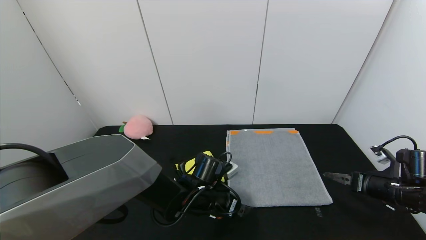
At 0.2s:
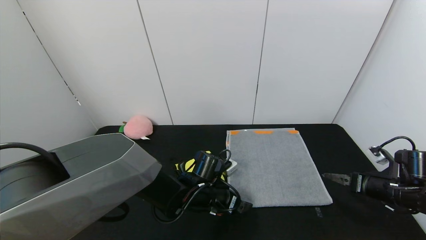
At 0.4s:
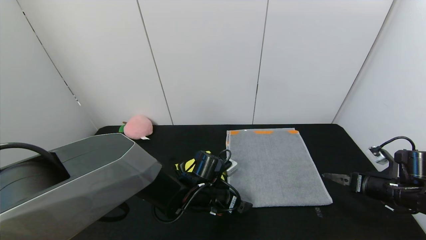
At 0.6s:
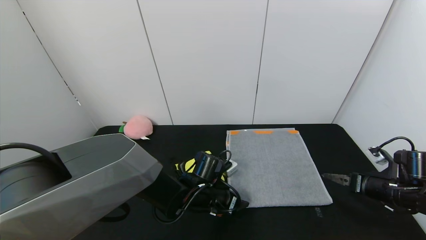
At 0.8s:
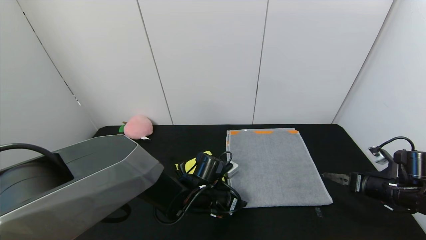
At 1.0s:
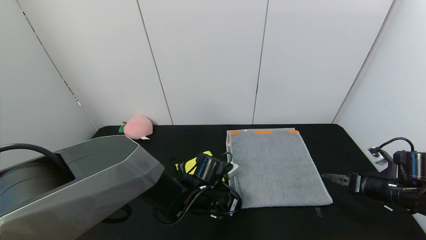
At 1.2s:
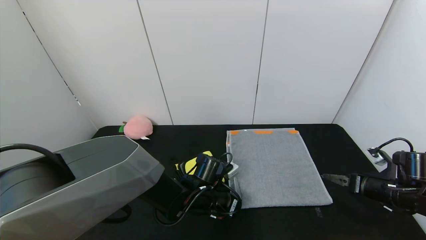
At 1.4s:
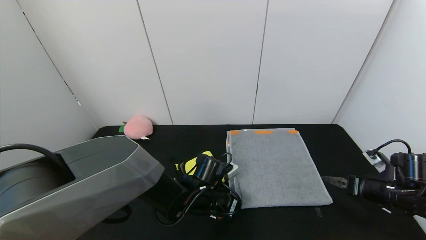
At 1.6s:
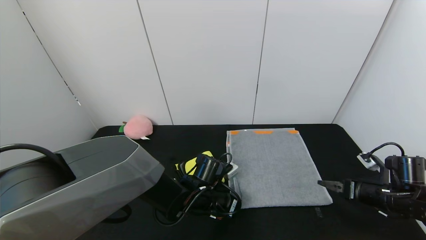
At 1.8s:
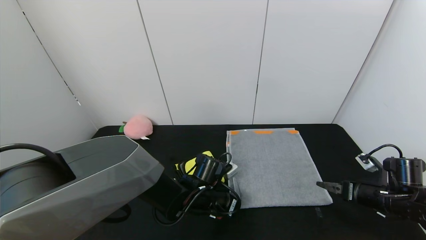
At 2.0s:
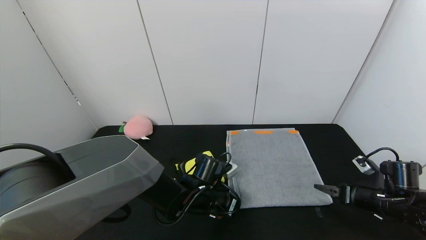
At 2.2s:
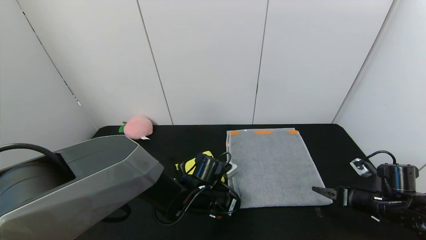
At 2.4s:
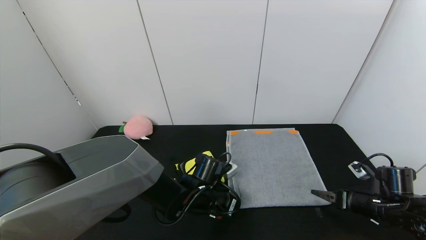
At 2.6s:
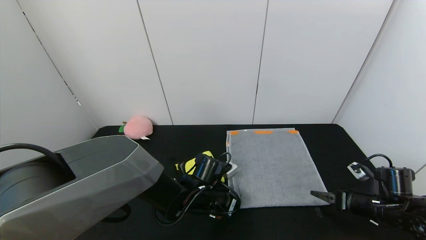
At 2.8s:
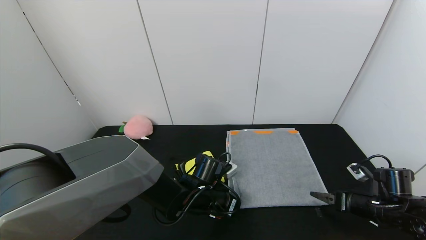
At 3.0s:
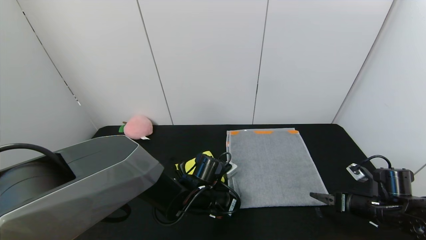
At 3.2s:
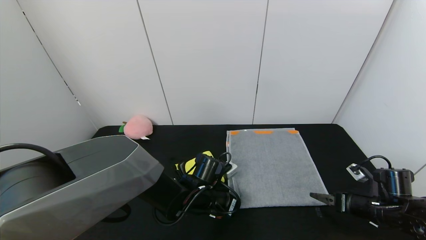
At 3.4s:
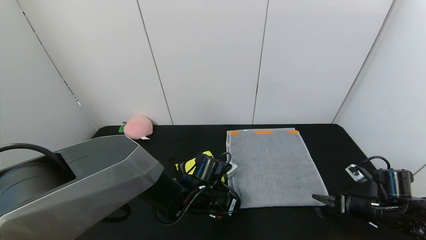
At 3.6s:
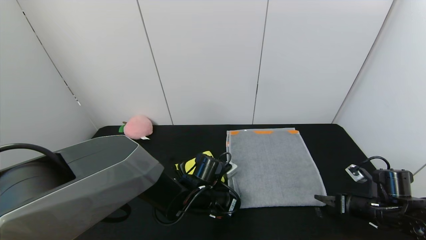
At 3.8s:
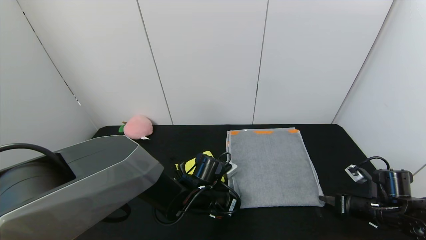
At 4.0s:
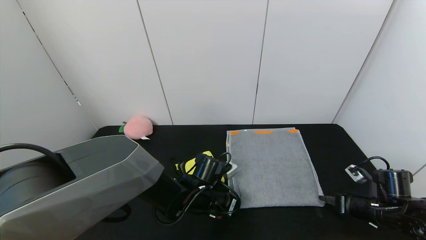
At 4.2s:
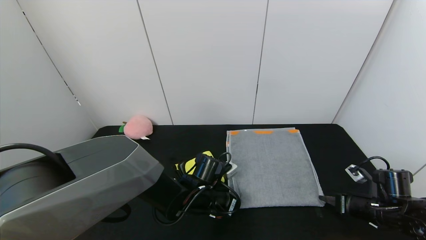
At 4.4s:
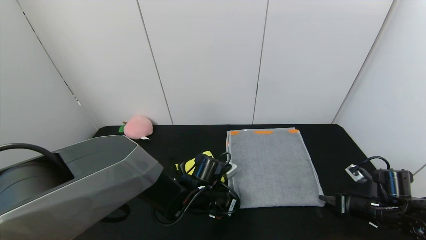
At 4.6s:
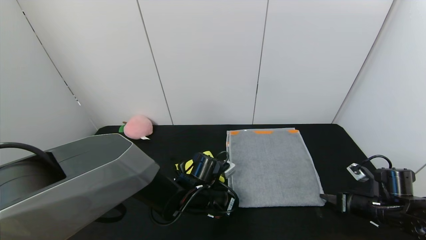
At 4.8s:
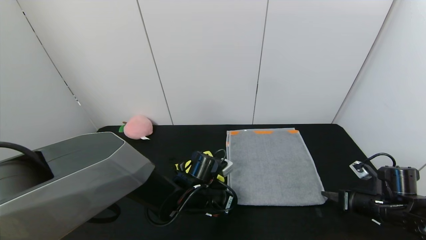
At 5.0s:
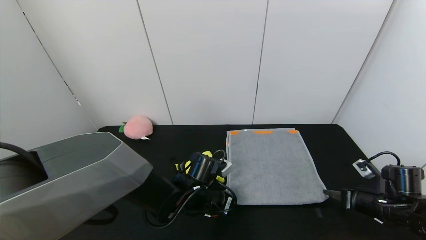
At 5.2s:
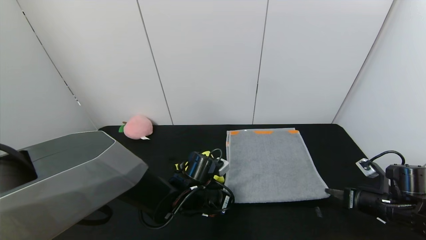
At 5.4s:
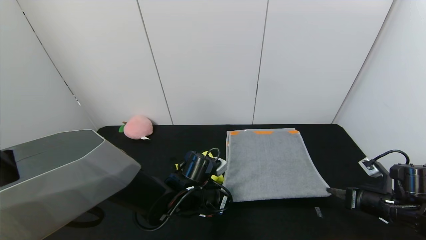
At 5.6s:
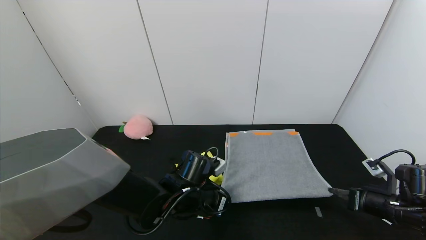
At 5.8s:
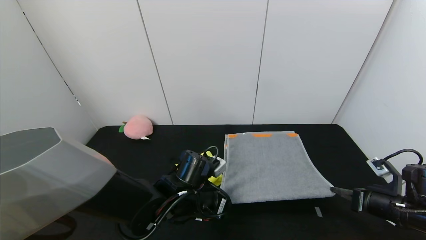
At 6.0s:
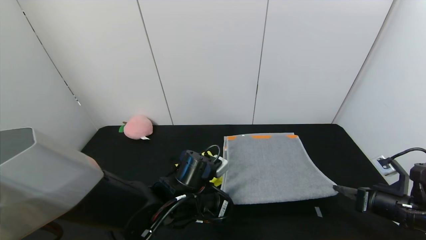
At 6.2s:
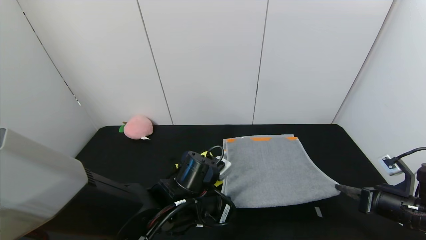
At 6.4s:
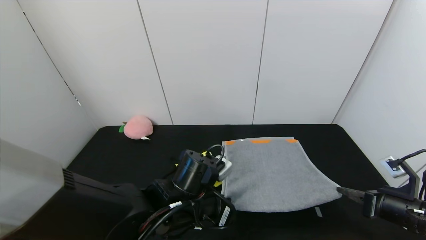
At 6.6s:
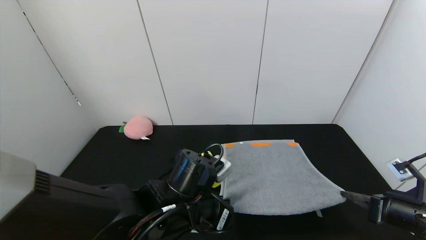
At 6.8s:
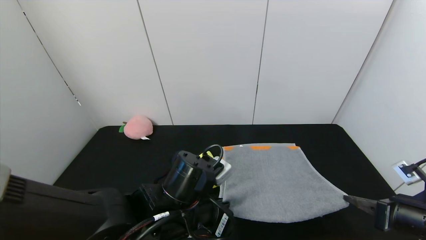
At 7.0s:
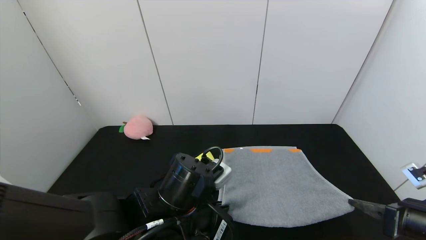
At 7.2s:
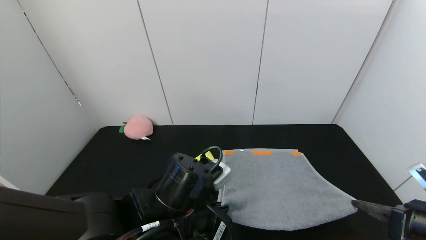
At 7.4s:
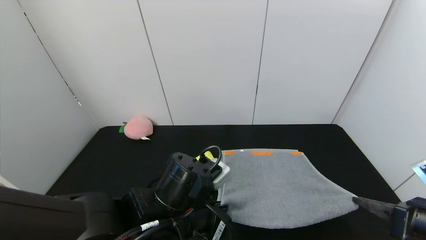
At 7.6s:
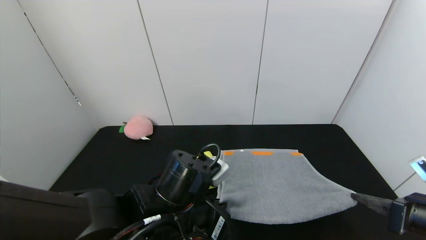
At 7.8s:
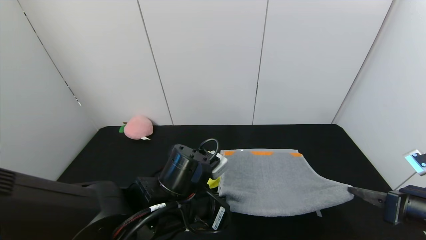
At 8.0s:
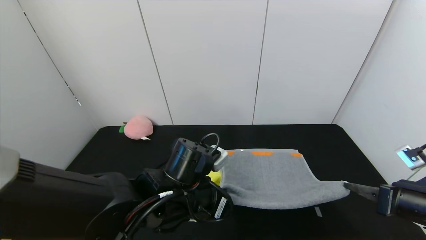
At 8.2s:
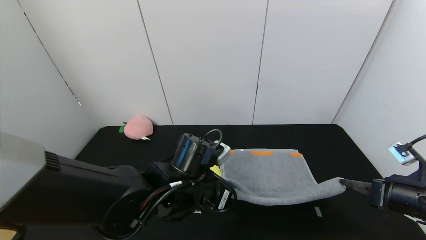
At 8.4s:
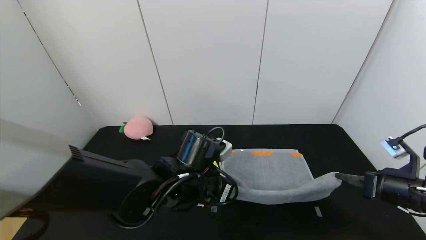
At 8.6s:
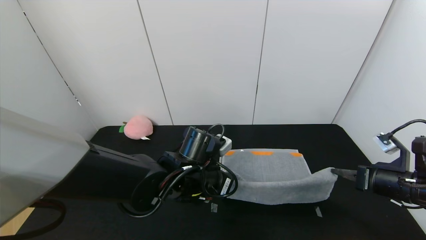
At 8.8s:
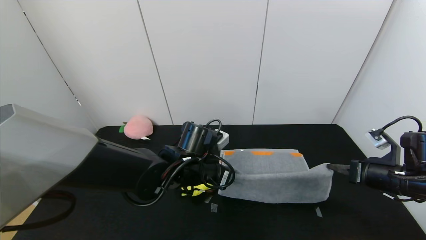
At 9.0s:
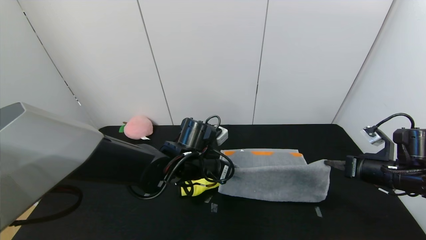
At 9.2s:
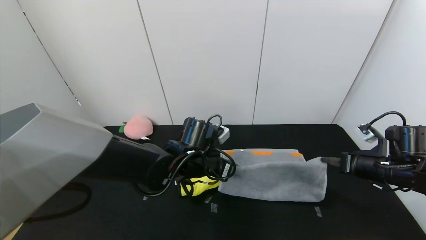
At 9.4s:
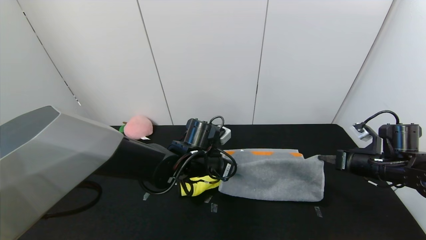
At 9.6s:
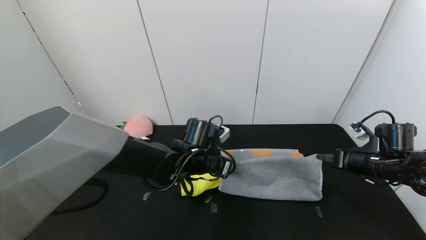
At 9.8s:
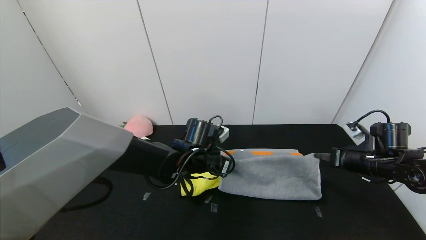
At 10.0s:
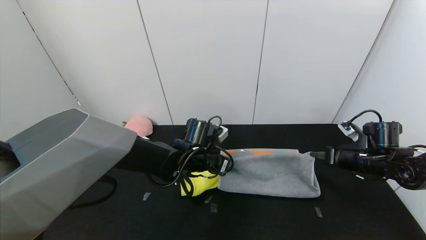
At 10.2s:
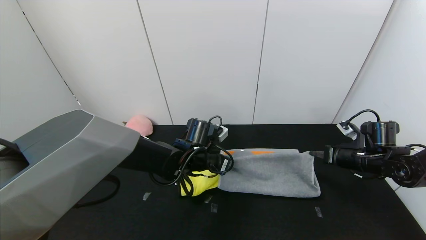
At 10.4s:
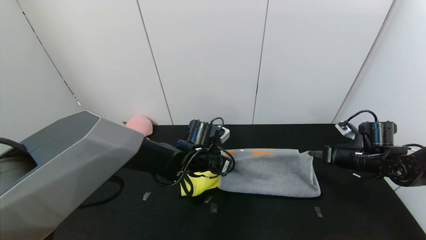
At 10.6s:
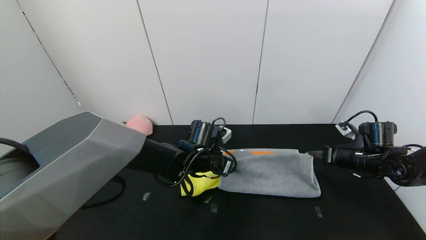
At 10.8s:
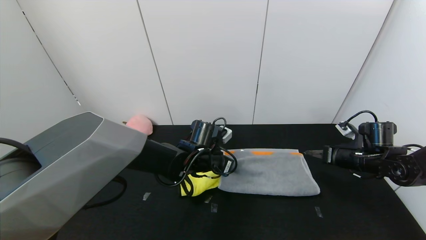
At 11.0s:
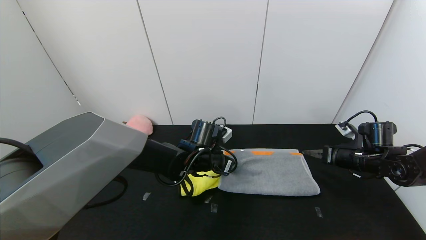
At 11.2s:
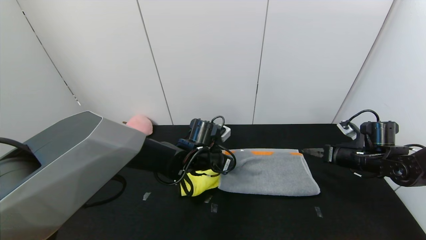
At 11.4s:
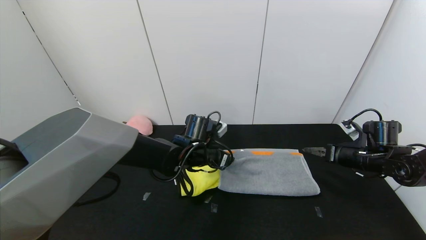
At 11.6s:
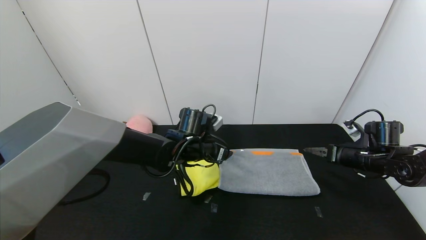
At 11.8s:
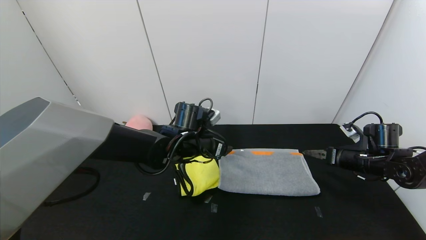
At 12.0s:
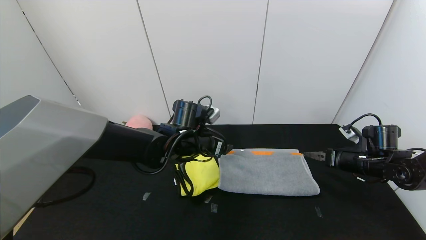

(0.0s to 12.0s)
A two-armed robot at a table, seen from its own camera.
Task of the whole recording: Use the gripper to fold the yellow towel and grey towel in half twice,then put the yellow towel on the grey towel.
Step, 0.0s - 11.6s: Fold the gray towel upwards with the left gripper.
Step, 0.0s - 11.6s: Fold the gray towel upwards with the right gripper.
0.0s - 1.6s: The left gripper closes up.
1.6s - 3.0s: The grippers stay close to where they were, moving slightly.
3.0s - 4.4s: The right gripper closes.
4.4s - 6.0s: The right gripper moves upward, some 5 cm. The left gripper is displaced upward and backward by approximately 10 cm.
6.0s - 7.6s: The left gripper travels backward by roughly 5 cm. The right gripper travels backward and upward by approximately 10 cm.
7.6s - 9.0s: The two grippers go some 10 cm forward.
9.0s - 10.4s: The right gripper goes roughly 5 cm forward, while the left gripper ends up roughly 5 cm from where it was.
10.4s - 12.0s: The left gripper heads upward, covering some 5 cm, and opens its fingers, while the right gripper opens its fingers.

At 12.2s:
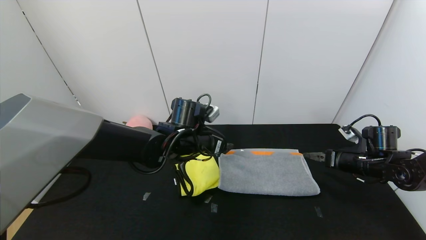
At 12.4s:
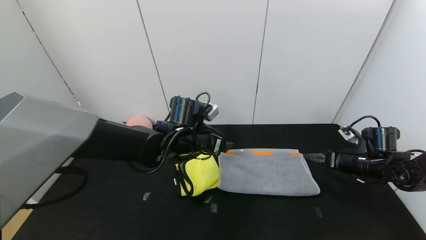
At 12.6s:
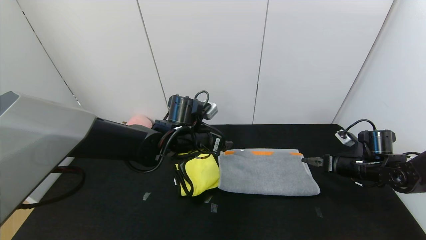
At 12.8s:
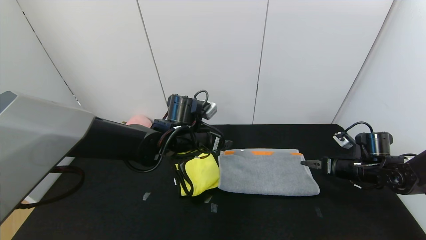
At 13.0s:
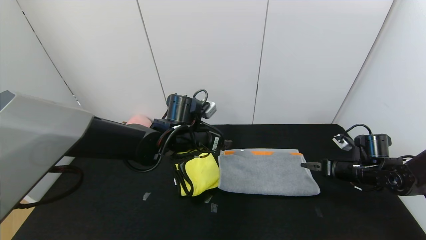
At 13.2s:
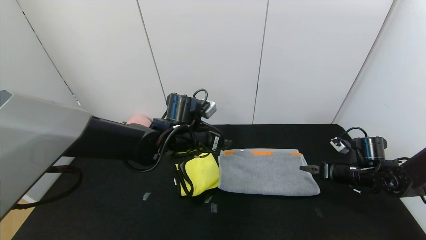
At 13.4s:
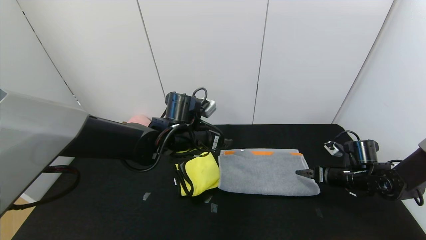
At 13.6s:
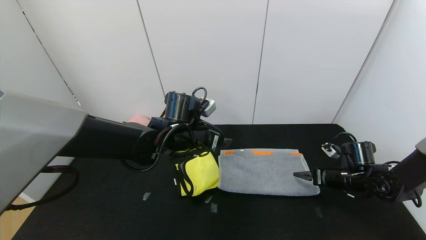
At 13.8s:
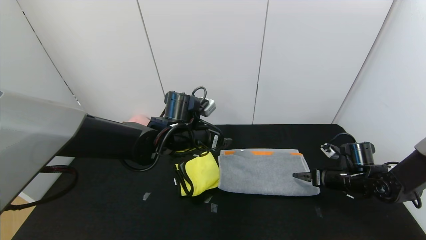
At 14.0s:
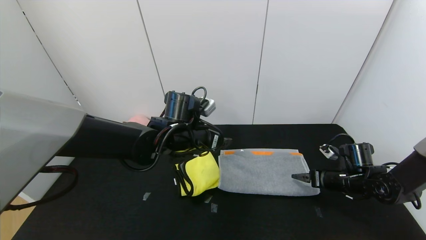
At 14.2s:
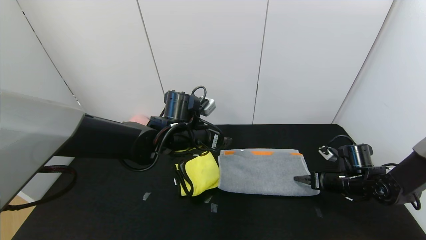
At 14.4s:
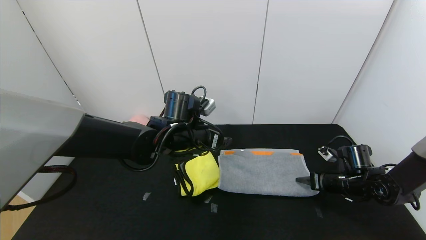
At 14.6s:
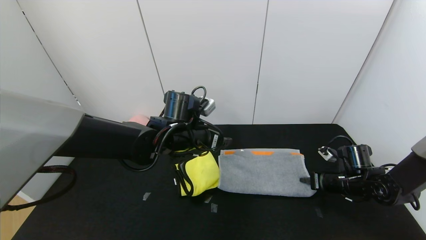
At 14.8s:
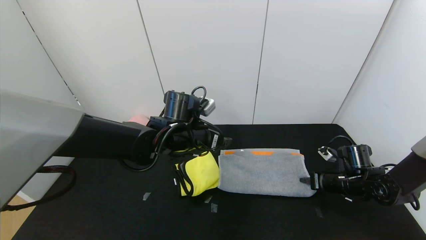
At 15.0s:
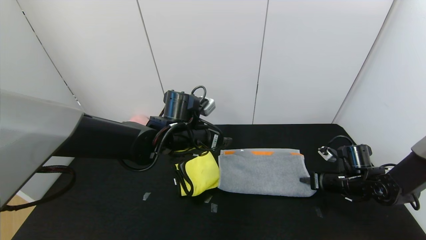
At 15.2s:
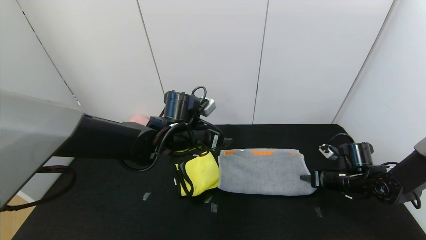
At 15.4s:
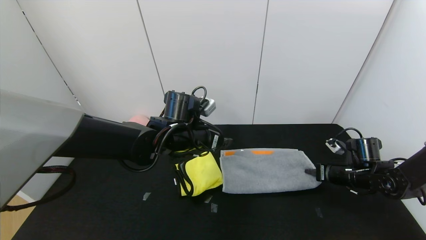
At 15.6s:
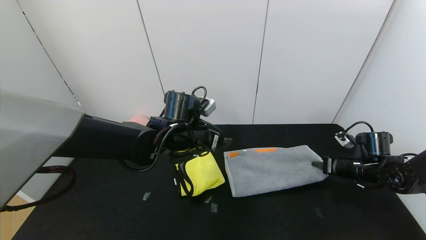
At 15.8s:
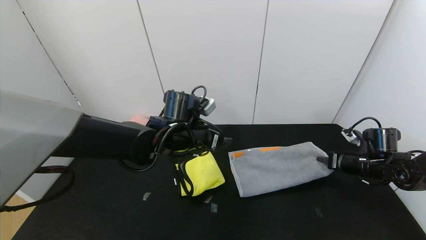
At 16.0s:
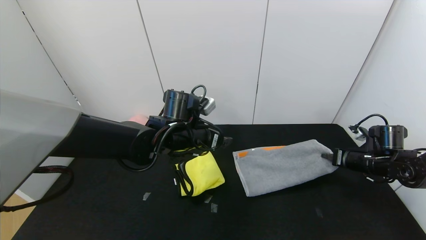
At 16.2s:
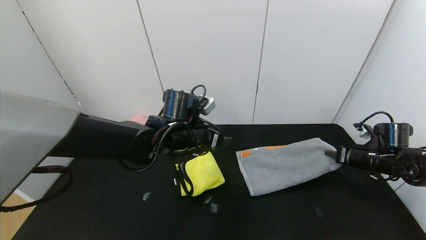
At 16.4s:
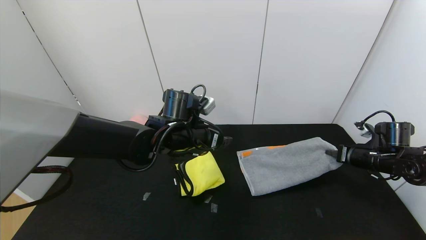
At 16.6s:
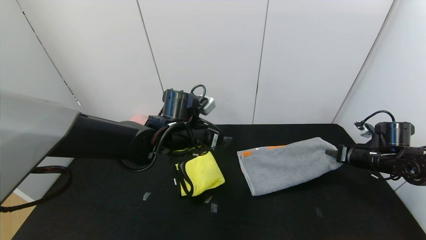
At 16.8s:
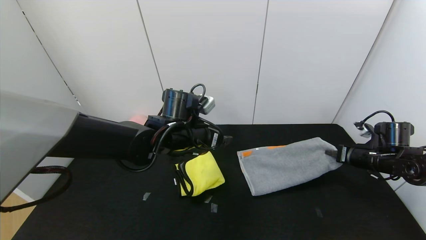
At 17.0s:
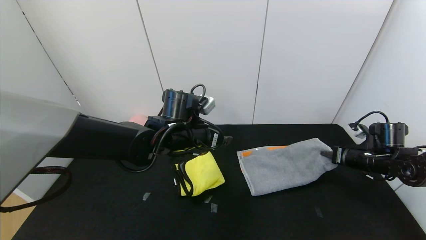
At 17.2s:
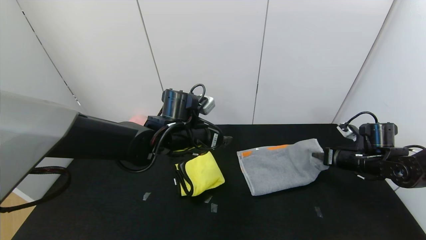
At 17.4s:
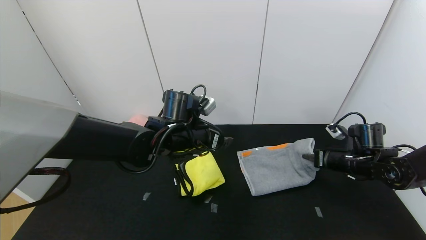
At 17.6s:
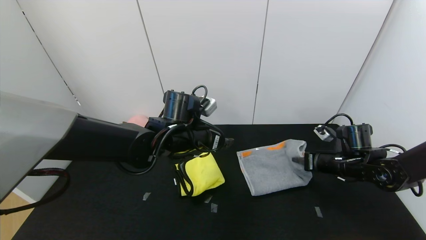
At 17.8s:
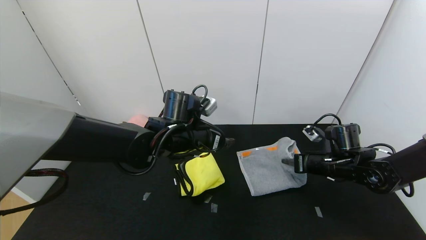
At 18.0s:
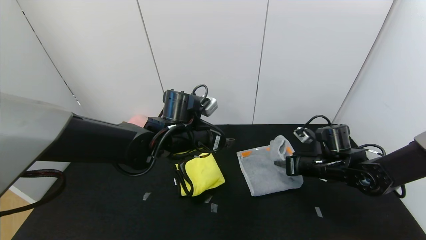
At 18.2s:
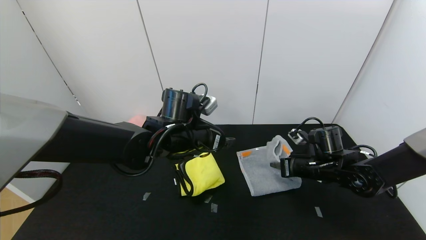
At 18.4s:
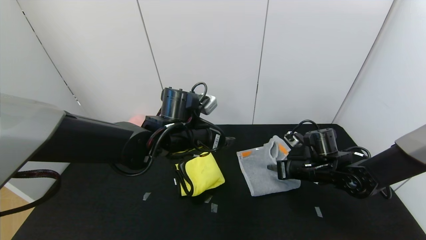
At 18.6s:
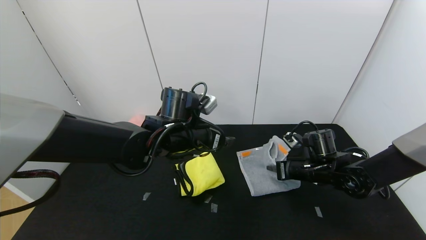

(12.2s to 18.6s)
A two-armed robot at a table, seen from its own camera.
Task of the whole recording: Use the gripper to fold the yellow towel and grey towel in half twice,then put the yellow towel on the grey towel.
12.2s - 13.8s: The right gripper moves roughly 5 cm.
13.8s - 15.4s: The right gripper closes its fingers.
17.0s - 18.6s: The right gripper shifts approximately 15 cm to the left.
